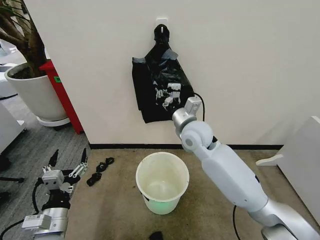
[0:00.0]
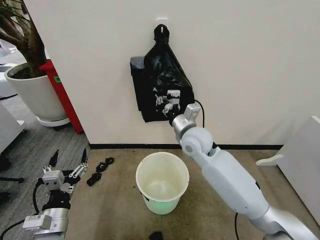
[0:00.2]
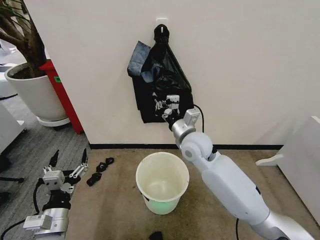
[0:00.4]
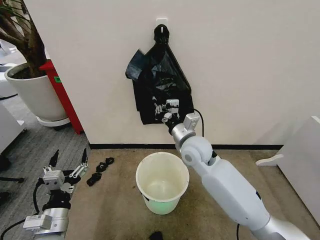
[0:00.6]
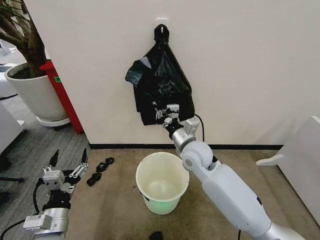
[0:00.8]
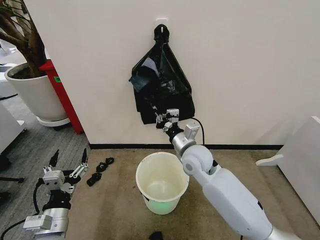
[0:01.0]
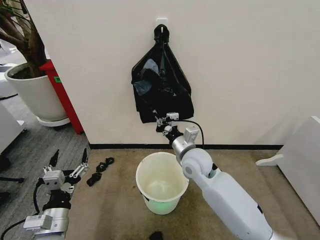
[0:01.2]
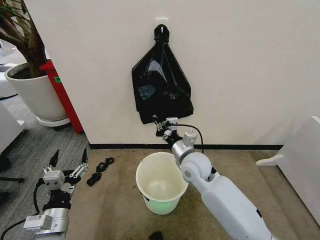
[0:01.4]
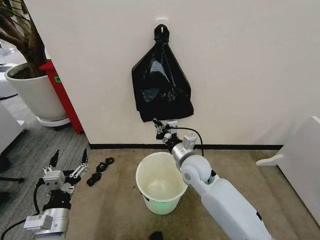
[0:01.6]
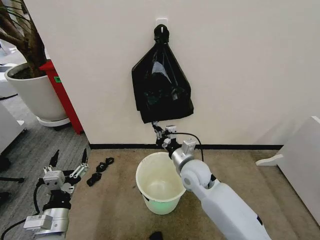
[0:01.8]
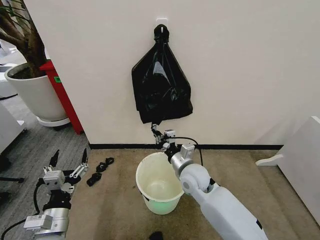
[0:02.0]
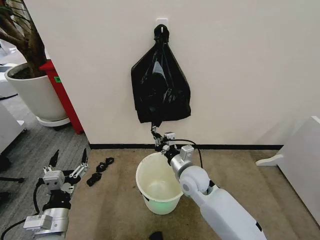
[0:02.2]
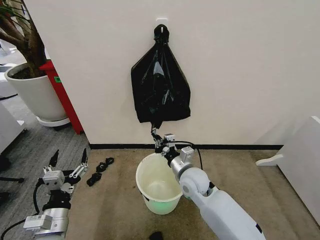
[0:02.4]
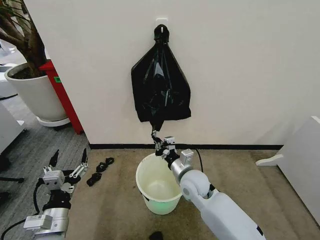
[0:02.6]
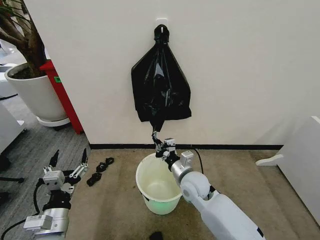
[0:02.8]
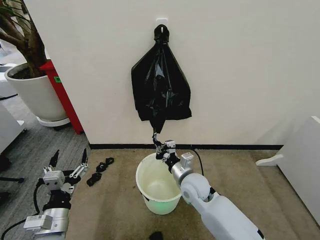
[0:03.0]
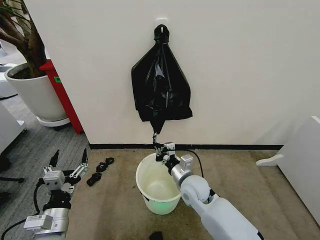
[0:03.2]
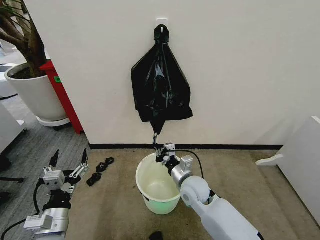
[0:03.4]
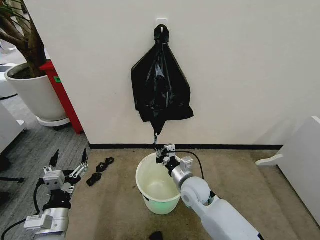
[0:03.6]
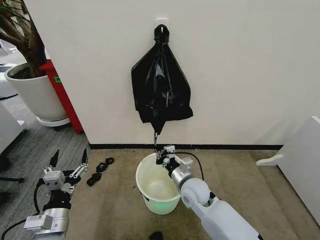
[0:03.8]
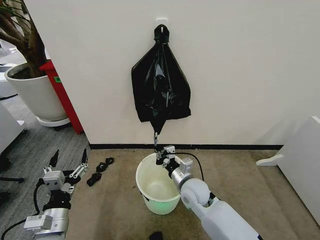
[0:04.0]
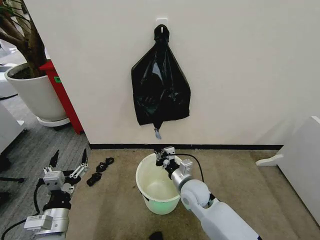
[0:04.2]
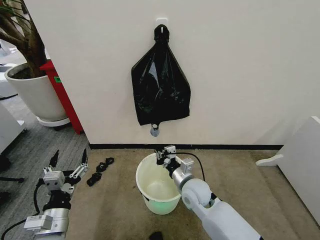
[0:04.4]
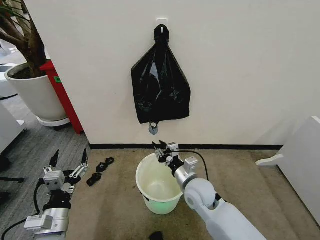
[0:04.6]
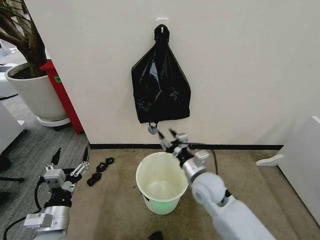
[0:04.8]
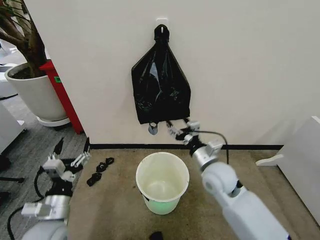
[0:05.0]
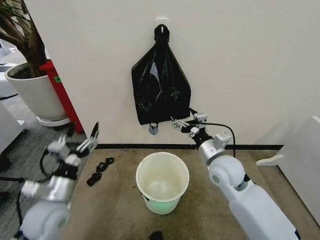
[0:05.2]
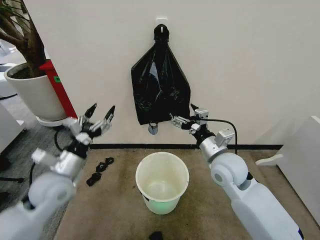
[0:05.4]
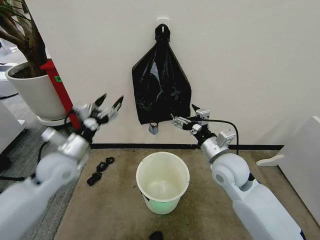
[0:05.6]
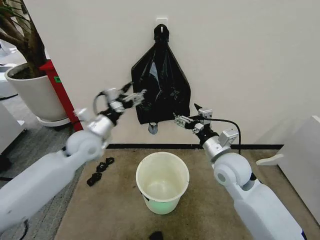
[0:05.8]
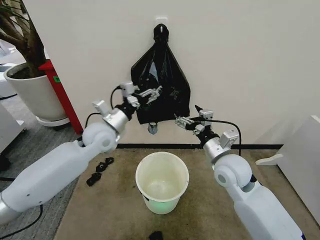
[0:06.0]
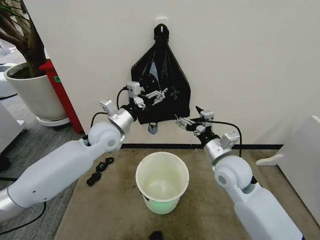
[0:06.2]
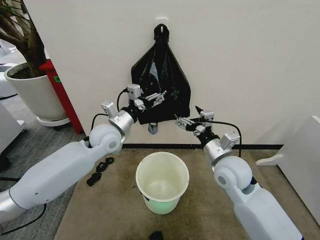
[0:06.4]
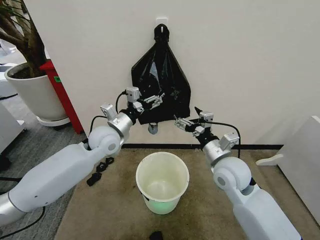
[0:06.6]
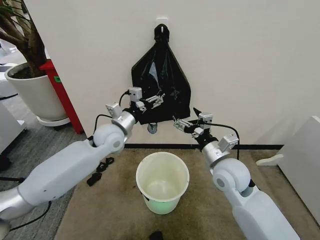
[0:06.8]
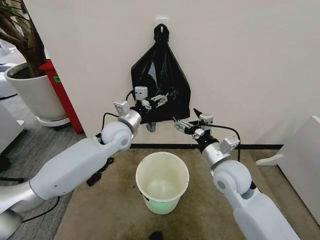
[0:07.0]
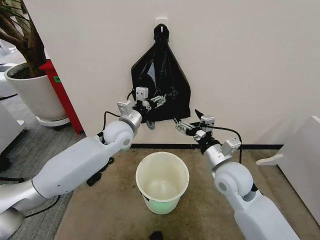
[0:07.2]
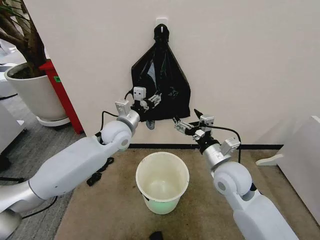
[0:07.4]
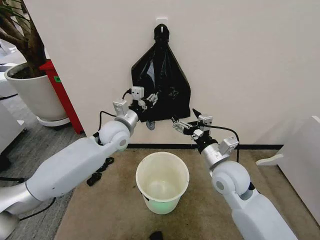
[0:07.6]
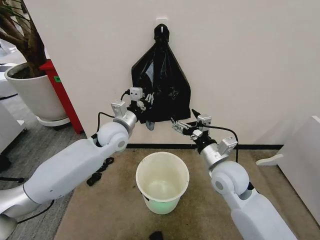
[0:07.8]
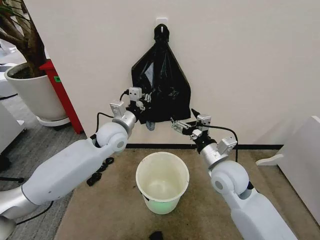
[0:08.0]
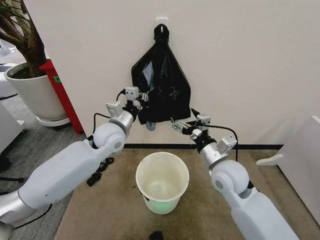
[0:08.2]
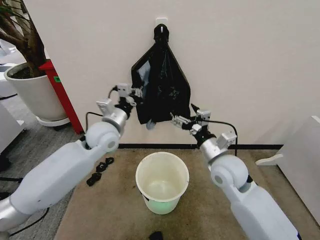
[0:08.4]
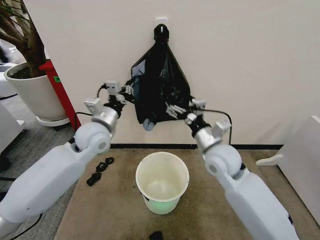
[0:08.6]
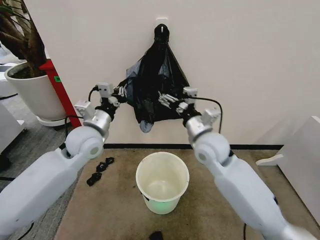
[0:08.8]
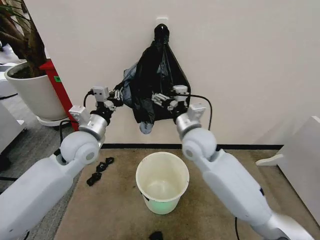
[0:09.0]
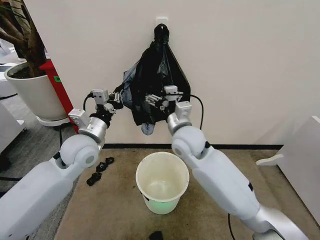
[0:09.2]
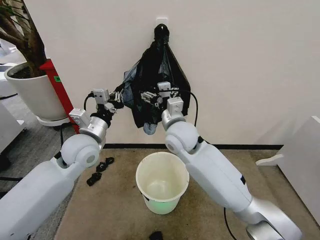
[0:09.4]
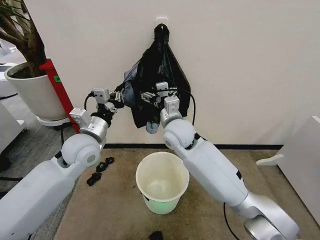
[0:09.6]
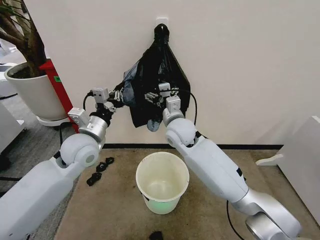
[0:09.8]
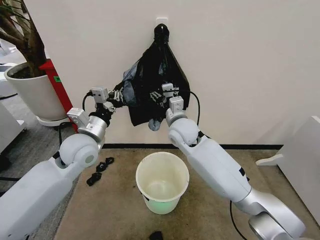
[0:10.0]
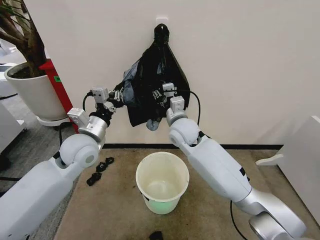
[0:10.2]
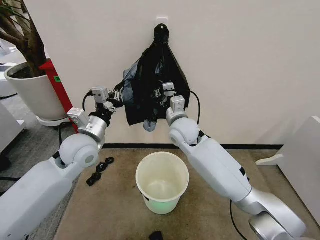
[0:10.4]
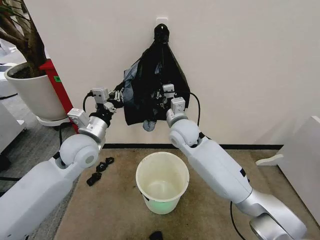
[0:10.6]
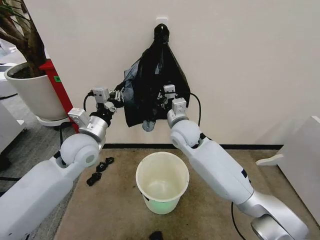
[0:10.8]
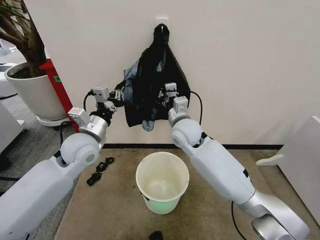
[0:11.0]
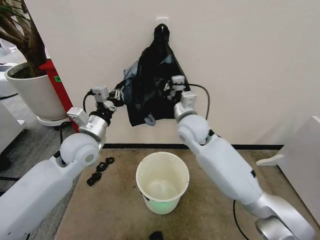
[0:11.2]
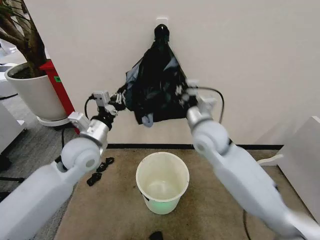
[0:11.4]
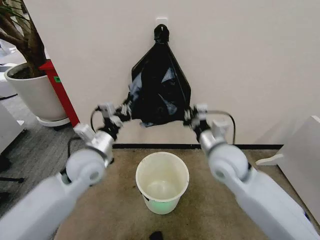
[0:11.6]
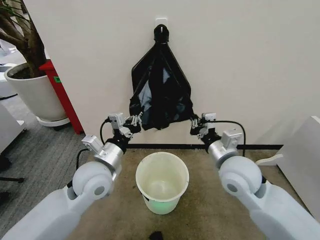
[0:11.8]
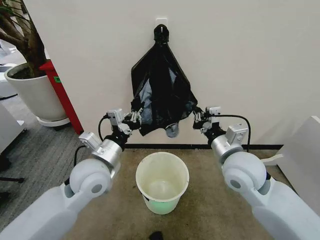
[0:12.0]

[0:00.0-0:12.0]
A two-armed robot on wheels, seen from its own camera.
Task of the whole recording: Place the garbage bag over the trash bin.
0:00.0 to 0:01.6: The right gripper goes roughly 10 cm downward and backward.
0:01.6 to 0:03.0: The right gripper moves downward, about 5 cm.
0:03.0 to 0:04.4: The grippers make only small movements.
0:04.4 to 0:06.0: The right gripper moves upward and to the right, some 15 cm, and opens its fingers, while the left gripper is displaced forward and upward by about 30 cm.
0:06.0 to 0:07.6: The left gripper moves about 5 cm, and closes.
0:07.6 to 0:09.0: The right gripper travels to the left, forward and upward by about 15 cm. Meanwhile the left gripper heads to the left and backward, covering roughly 10 cm, and closes.
0:09.0 to 0:10.4: The right gripper goes about 5 cm forward, and closes its fingers.
0:10.4 to 0:12.0: The left gripper goes approximately 5 cm backward. Meanwhile the right gripper shifts roughly 20 cm backward and to the right.

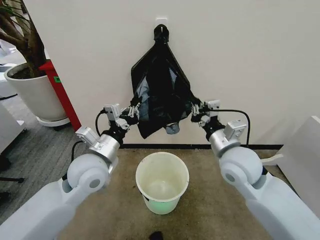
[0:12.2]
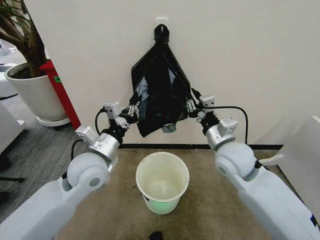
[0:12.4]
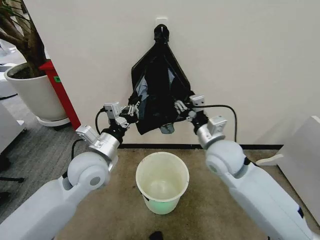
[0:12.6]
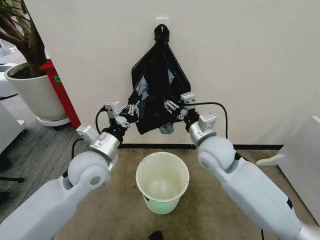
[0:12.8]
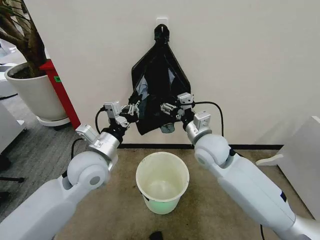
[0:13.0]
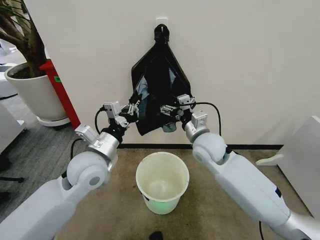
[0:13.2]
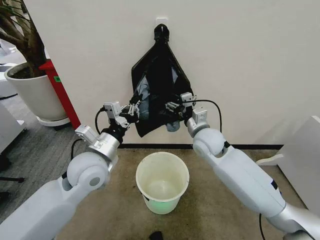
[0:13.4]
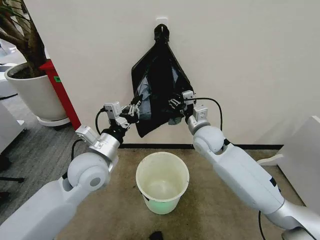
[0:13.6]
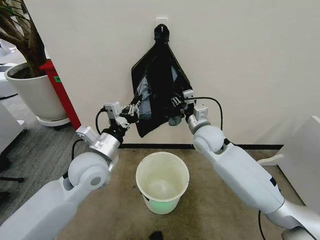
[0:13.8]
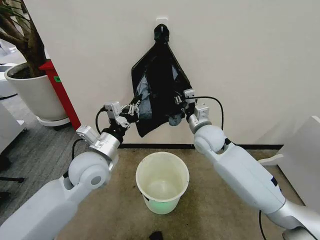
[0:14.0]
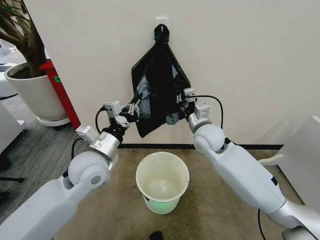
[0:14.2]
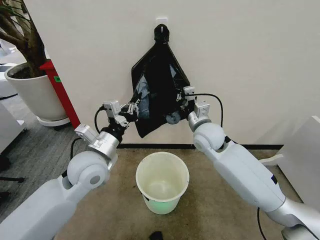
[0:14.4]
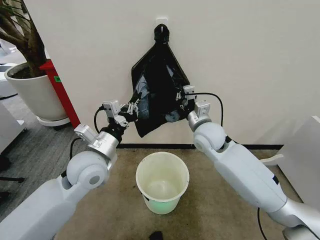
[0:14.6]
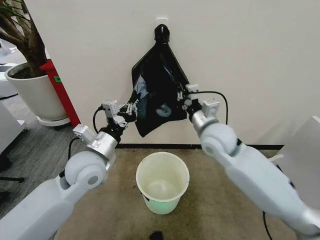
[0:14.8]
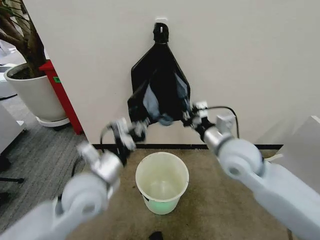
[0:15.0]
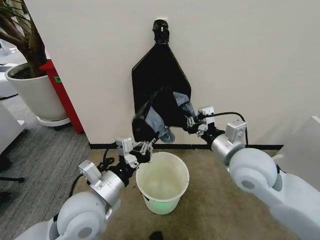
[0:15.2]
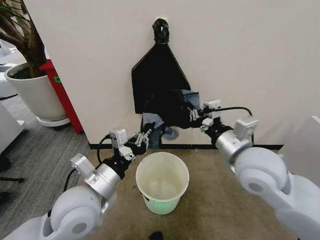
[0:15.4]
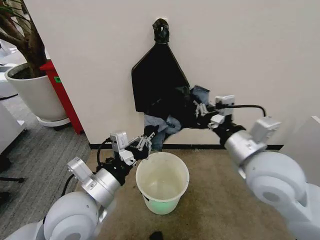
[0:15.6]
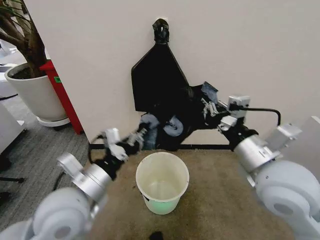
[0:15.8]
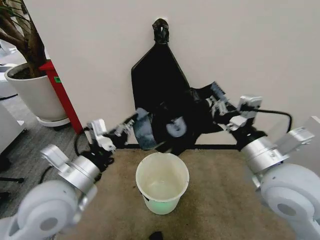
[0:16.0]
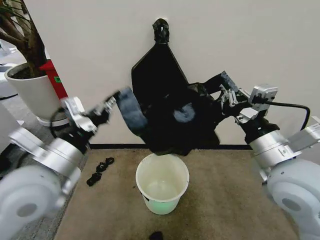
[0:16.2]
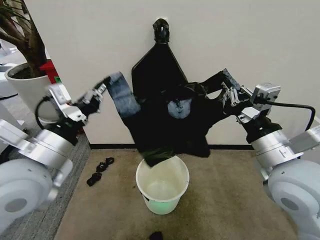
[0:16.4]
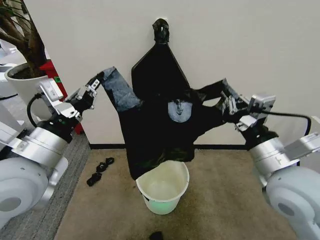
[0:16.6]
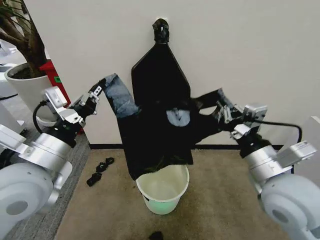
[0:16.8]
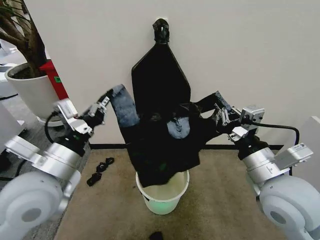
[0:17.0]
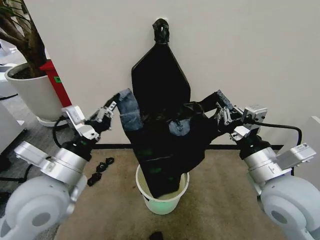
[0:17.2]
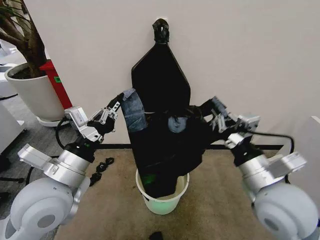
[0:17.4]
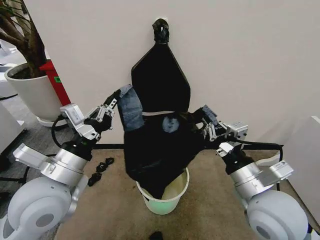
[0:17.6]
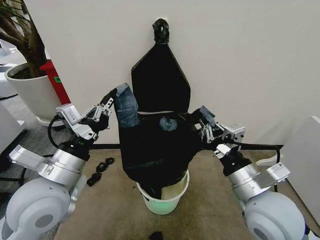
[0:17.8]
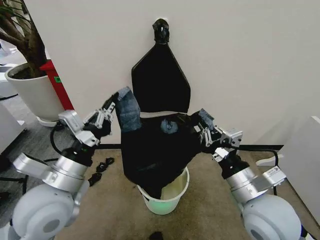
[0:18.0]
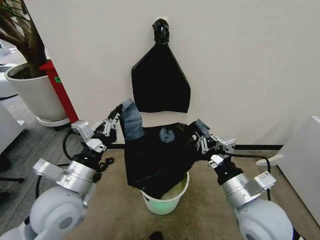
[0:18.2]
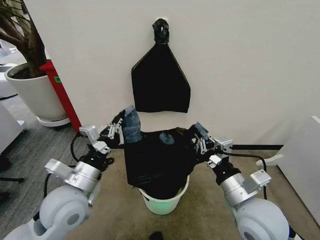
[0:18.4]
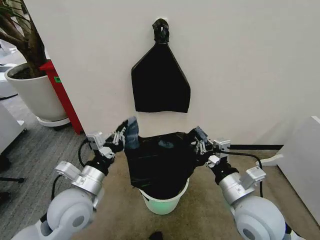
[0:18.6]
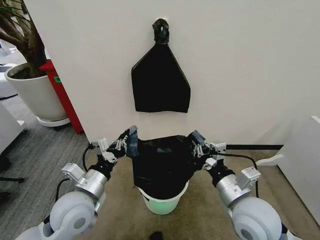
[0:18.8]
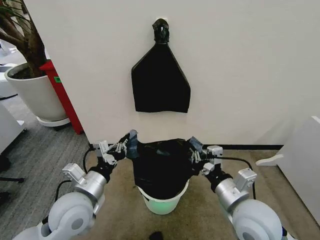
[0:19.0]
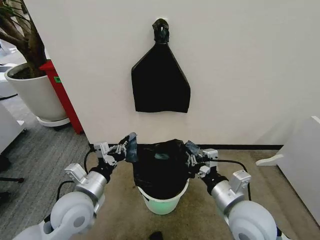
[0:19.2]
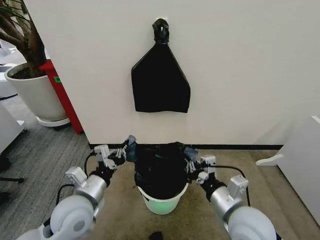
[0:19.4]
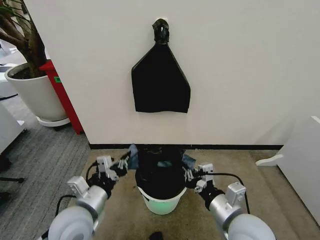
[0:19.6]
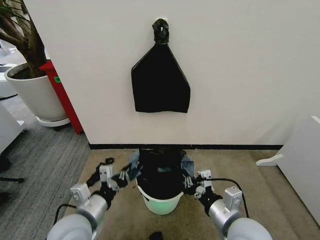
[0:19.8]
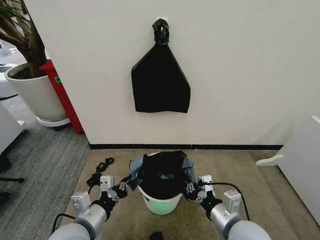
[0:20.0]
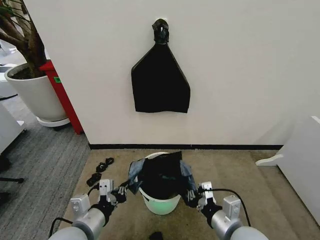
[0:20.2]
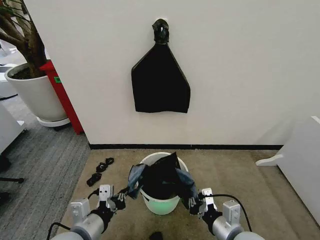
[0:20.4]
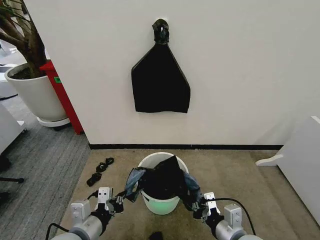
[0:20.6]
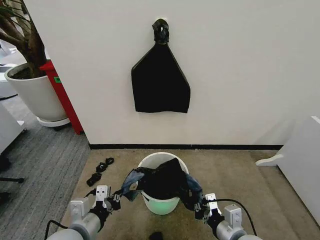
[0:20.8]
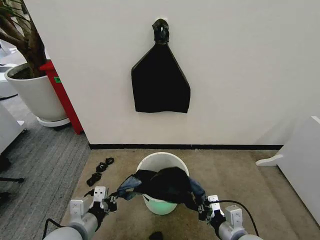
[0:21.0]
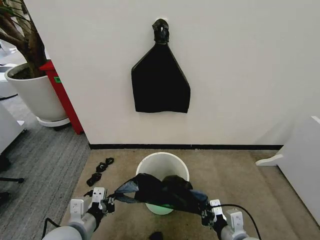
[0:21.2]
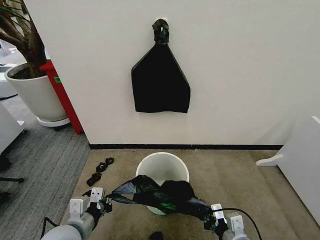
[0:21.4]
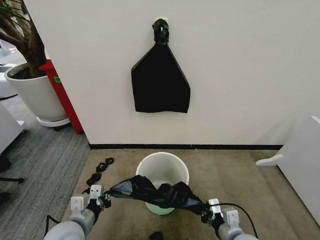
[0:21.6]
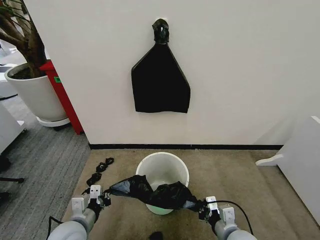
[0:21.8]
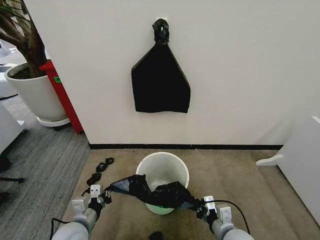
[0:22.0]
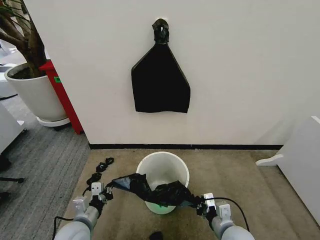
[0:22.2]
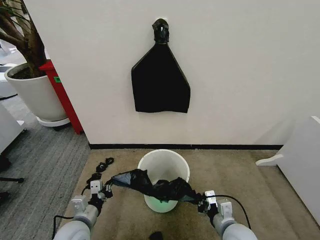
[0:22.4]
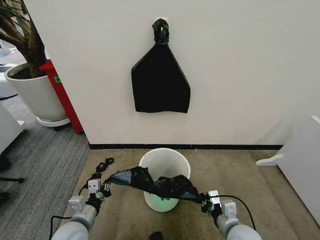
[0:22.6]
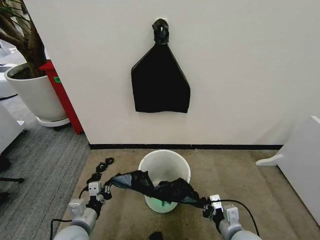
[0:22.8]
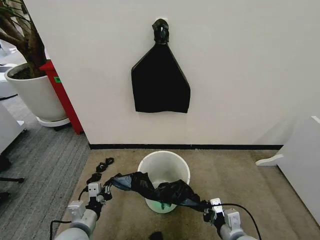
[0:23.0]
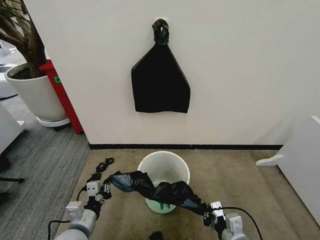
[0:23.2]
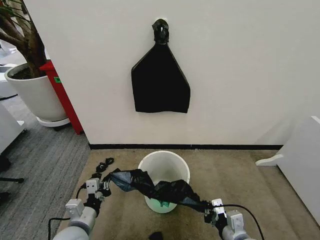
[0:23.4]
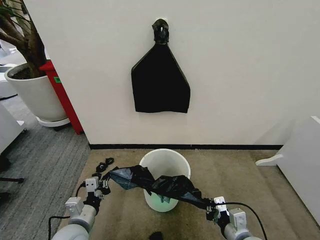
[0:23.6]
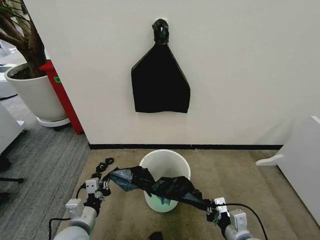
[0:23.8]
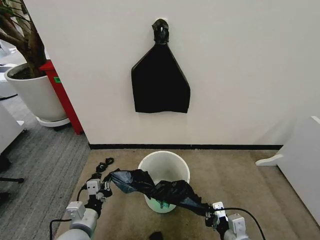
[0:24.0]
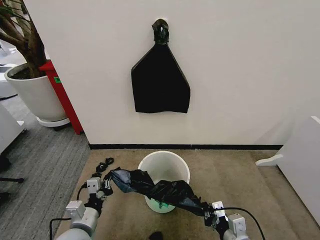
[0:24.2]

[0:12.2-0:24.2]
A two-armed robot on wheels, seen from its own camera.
Task of the whole recording: Place the garbage bag over the trash bin.
0:12.2 to 0:13.8: The right gripper shifts about 10 cm forward, and opens up.
0:13.8 to 0:15.2: The left gripper travels backward by approximately 10 cm, while the right gripper travels backward and upward by roughly 15 cm, and closes.
0:15.2 to 0:16.6: The left gripper shifts approximately 15 cm upward and to the left. The right gripper moves backward, about 5 cm.
0:16.6 to 0:18.2: The two grippers go some 10 cm downward.
0:18.2 to 0:19.8: The two grippers go roughly 10 cm downward.
0:19.8 to 0:21.2: The right gripper goes roughly 5 cm downward.
0:21.2 to 0:22.6: The left gripper travels downward by roughly 10 cm, while the right gripper ends up approximately 5 cm from where it was.
0:22.6 to 0:24.2: The right gripper is displaced backward by about 5 cm.
